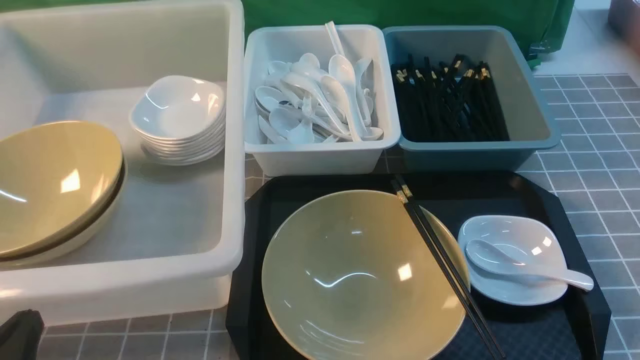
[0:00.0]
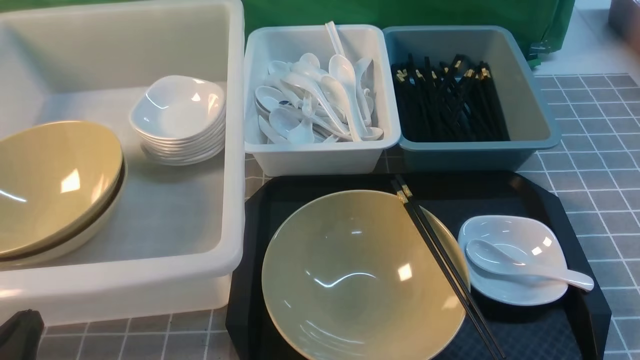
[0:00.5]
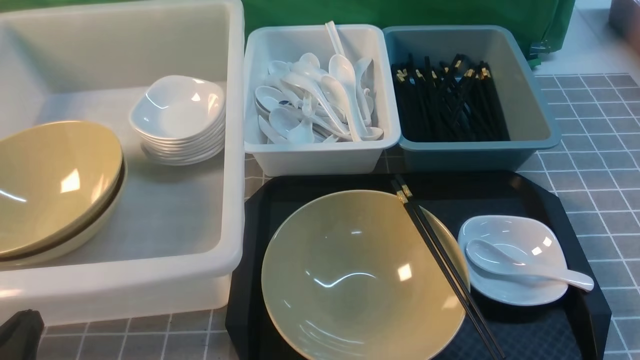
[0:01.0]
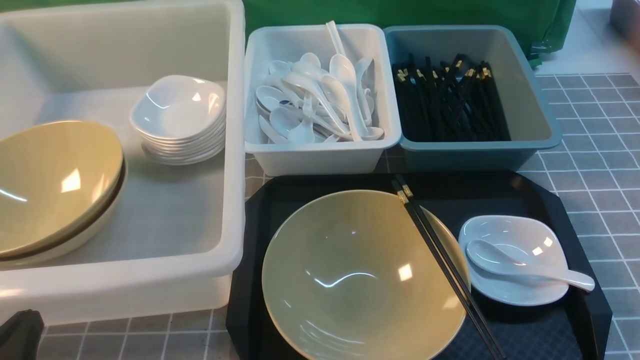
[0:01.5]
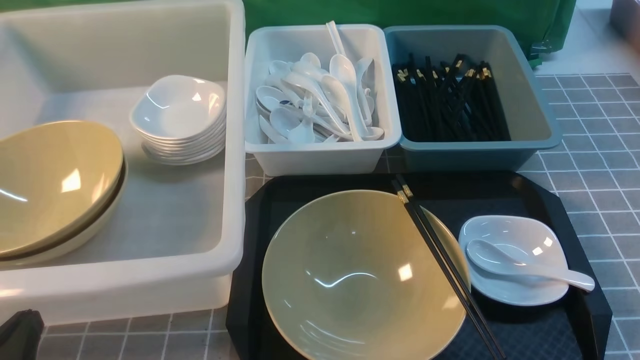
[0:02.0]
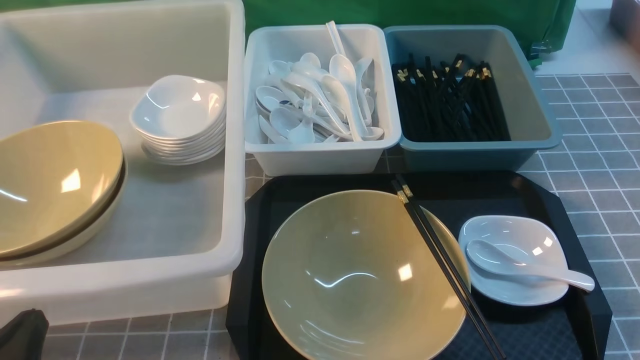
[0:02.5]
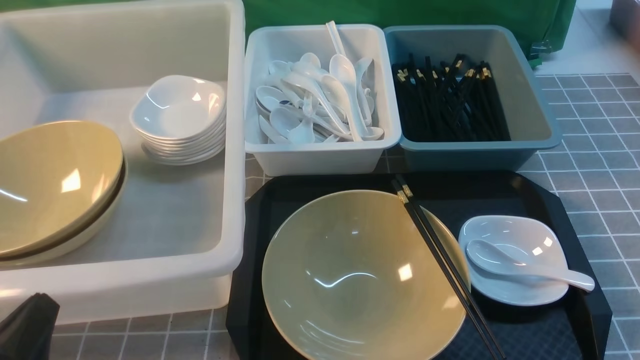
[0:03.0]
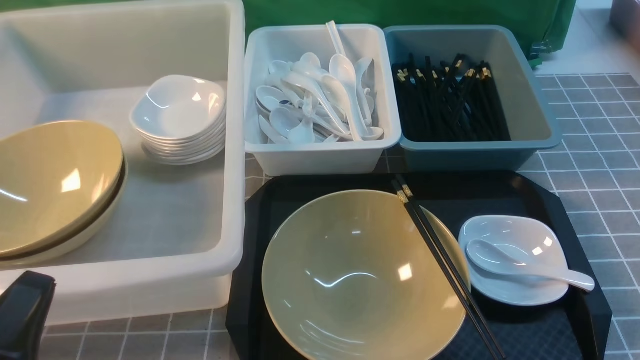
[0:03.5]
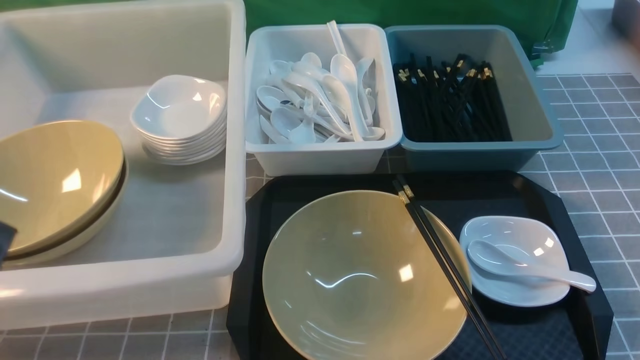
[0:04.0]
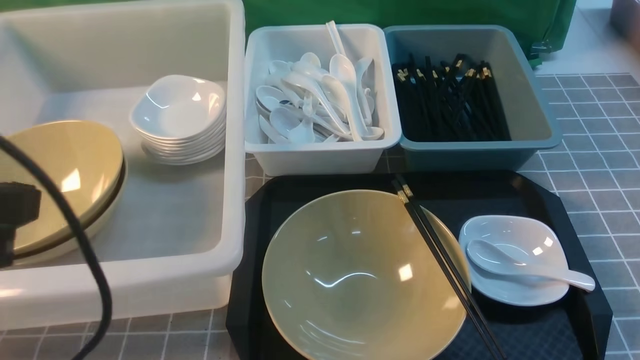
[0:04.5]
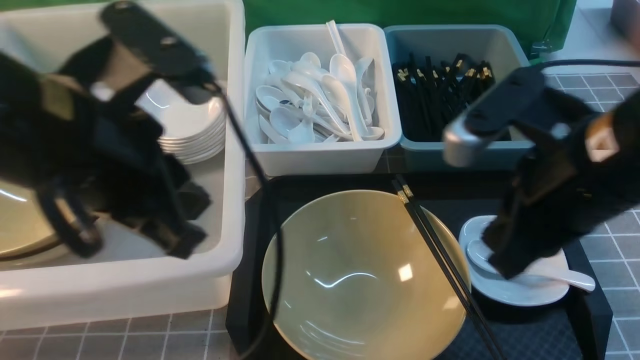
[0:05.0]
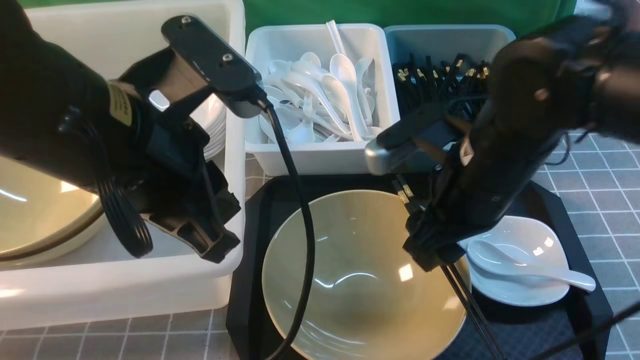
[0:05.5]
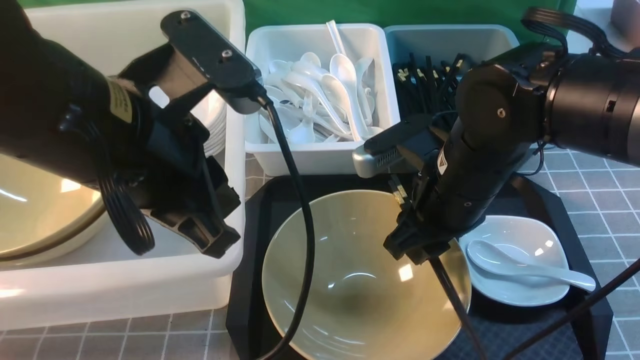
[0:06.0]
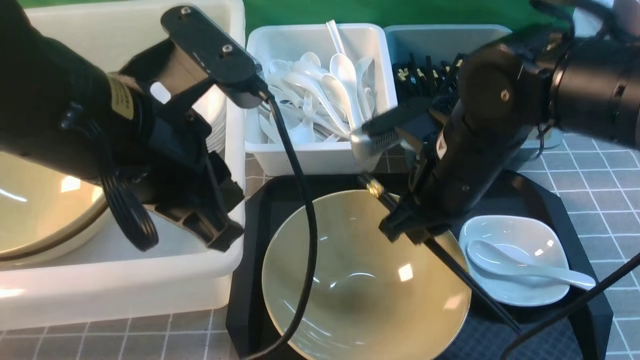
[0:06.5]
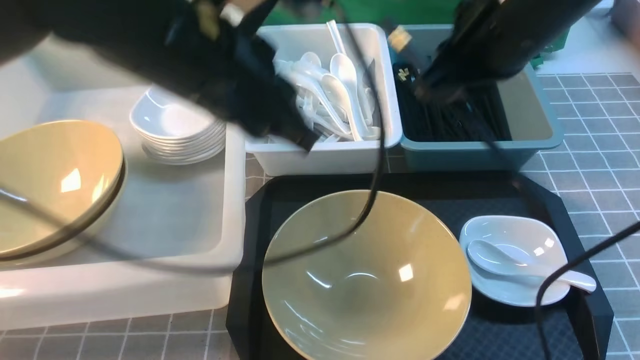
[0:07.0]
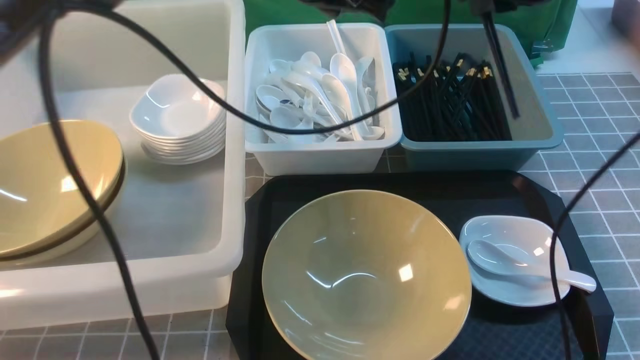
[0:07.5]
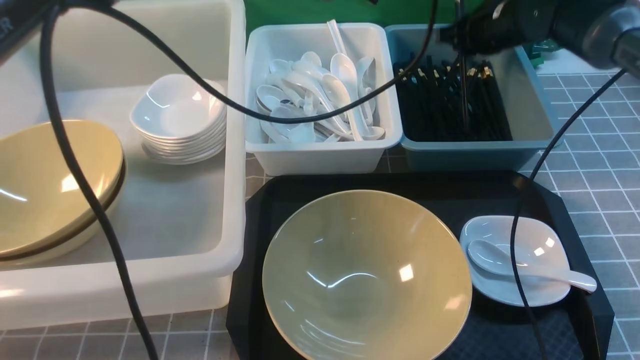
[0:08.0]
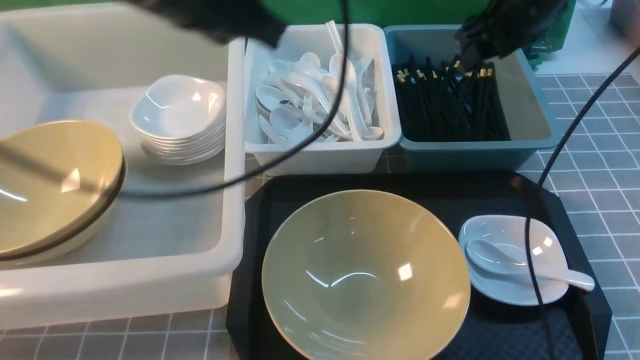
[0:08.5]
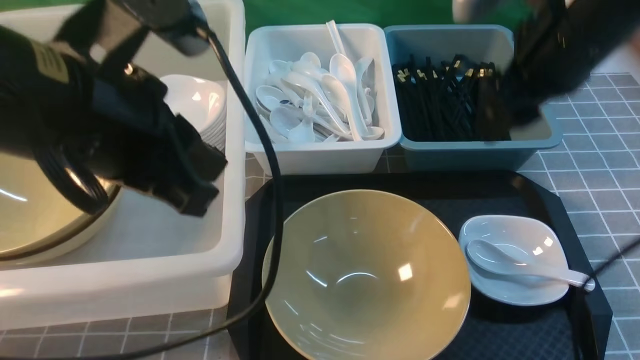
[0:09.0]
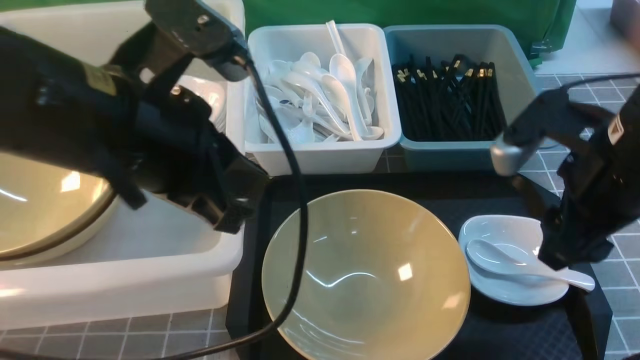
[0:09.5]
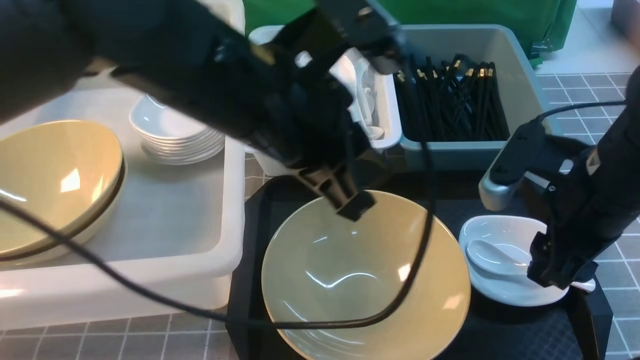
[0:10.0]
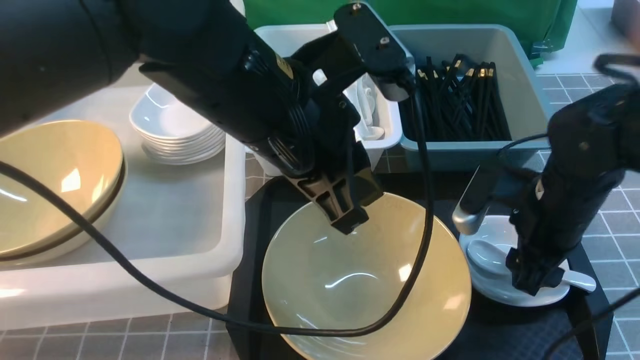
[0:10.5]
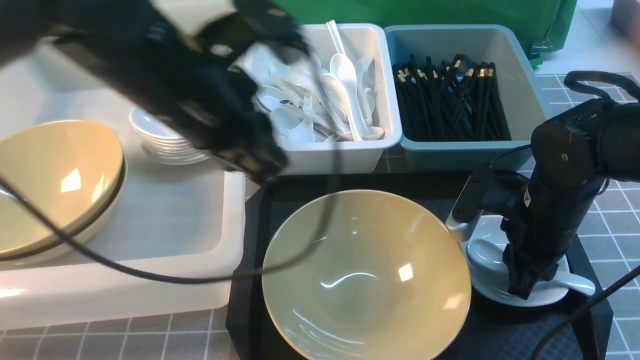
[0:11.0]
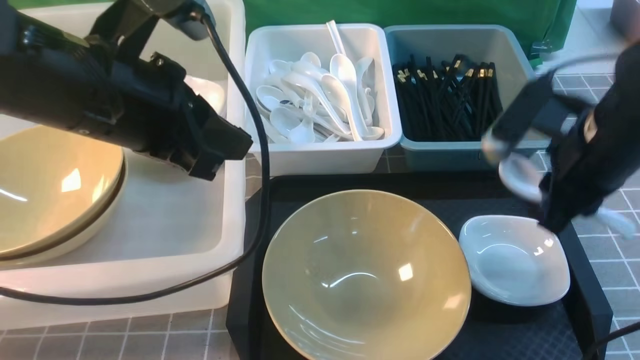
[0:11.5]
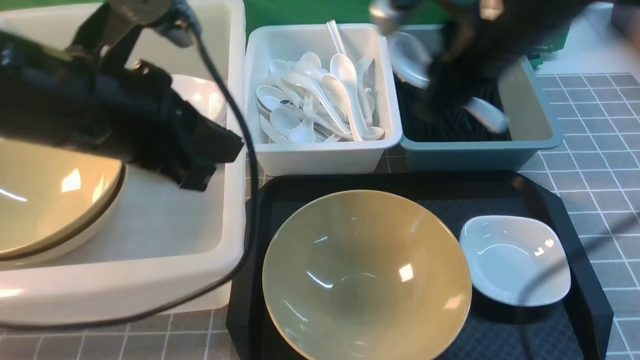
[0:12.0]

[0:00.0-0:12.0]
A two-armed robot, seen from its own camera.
Task of the whole recording: on grey table put chopsticks spoon bowls plates into blue grey white boxes.
Step, 0:00.0 to 0:06.5: use the right arm to grab the chopsticks.
Step, 0:07.0 to 0:08.0: use the right arm to put the chopsticks into the small storage box on the right.
Step, 0:08.5 to 0:11.0: use the right arm to grab the soup spoon in the middle.
0:00.0 to 0:02.0: Neither gripper changes place.
0:02.0 to 0:04.0: Both grippers move upward, about 10 cm.
0:04.0 to 0:06.0: The right gripper shifts approximately 30 cm forward and to the left, and opens, then closes once more. Meanwhile the left gripper heads forward, to the right and upward, covering approximately 20 cm.
0:06.0 to 0:08.0: Both grippers move forward and to the right, roughly 25 cm.
0:08.0 to 0:10.0: The right gripper goes roughly 25 cm backward, and opens up. Meanwhile the left gripper travels backward by approximately 15 cm.
0:10.0 to 0:12.0: The left gripper goes approximately 10 cm to the left. The right gripper is displaced upward, to the left and forward by approximately 15 cm, and closes its fingers.

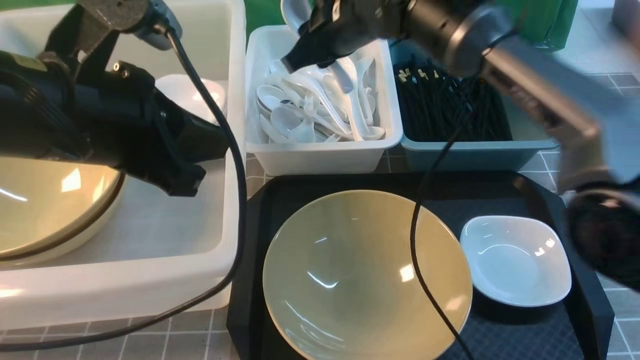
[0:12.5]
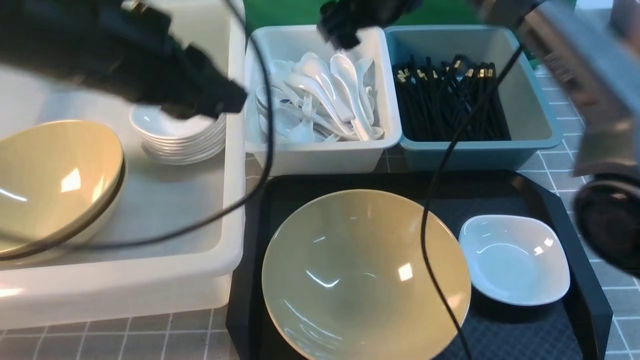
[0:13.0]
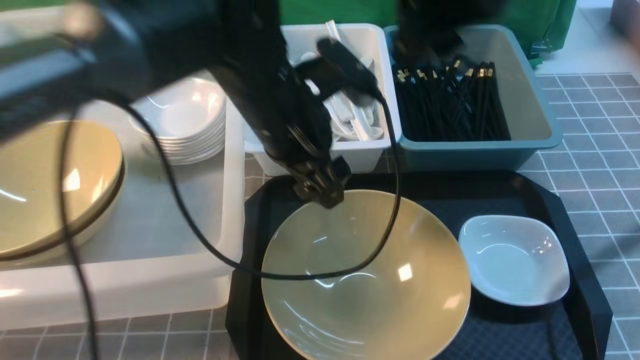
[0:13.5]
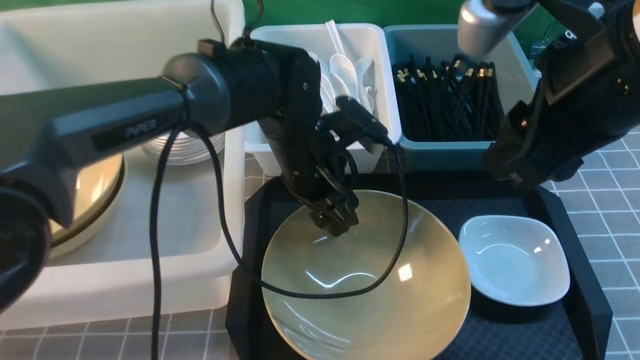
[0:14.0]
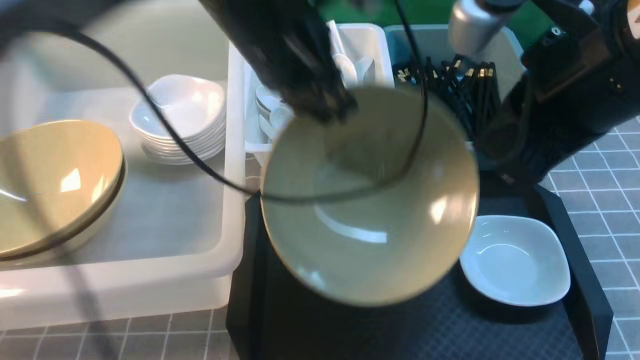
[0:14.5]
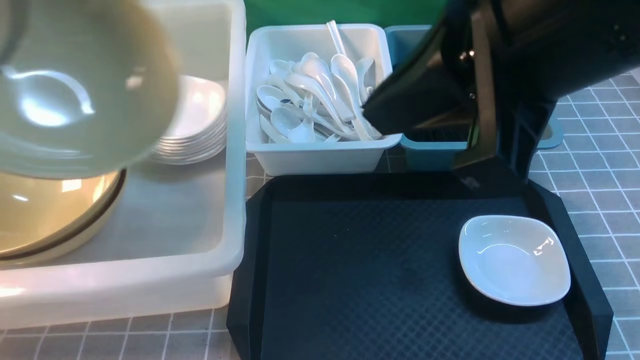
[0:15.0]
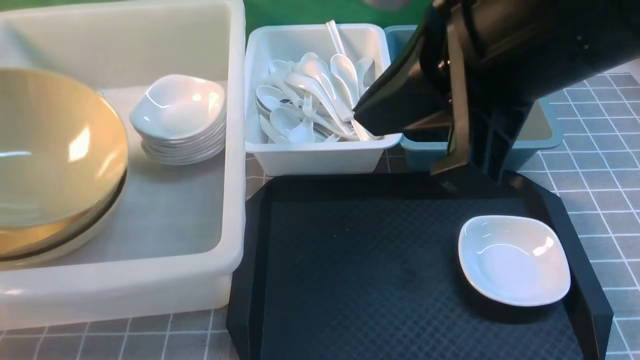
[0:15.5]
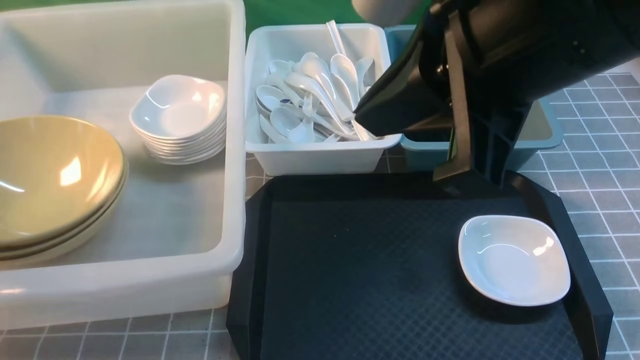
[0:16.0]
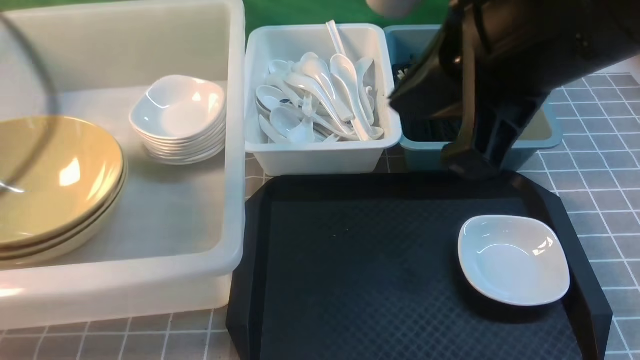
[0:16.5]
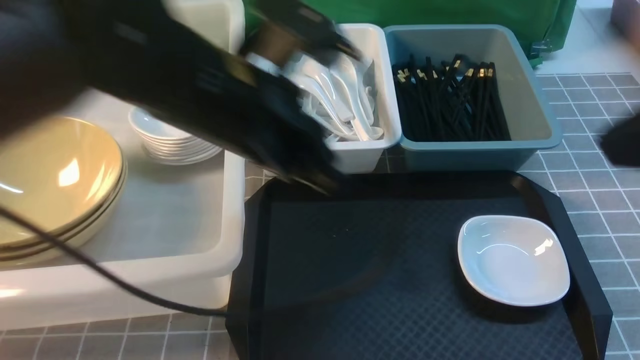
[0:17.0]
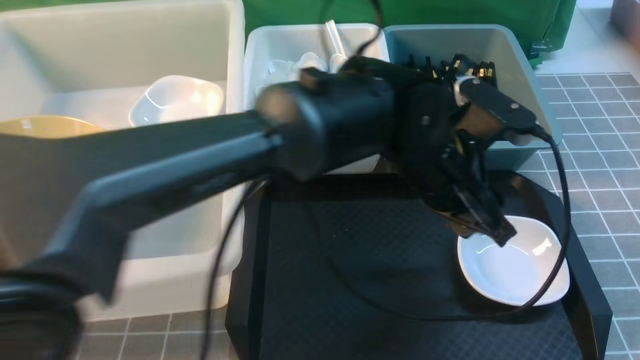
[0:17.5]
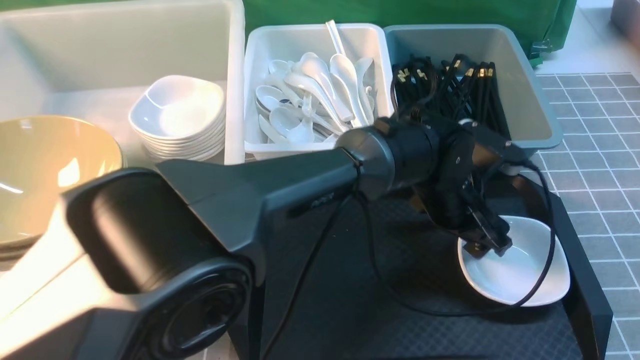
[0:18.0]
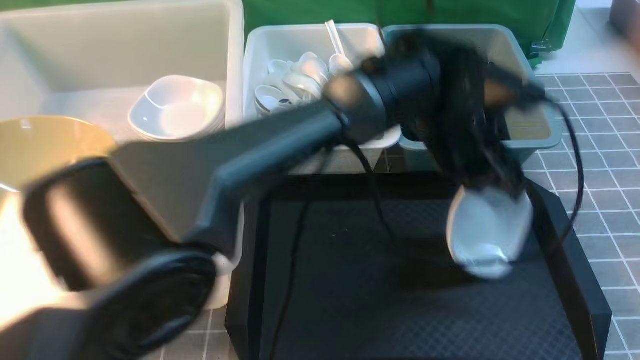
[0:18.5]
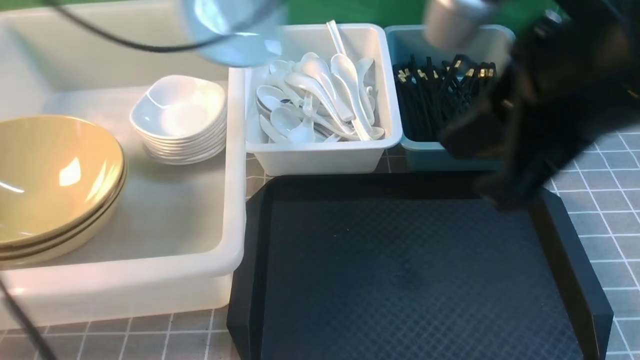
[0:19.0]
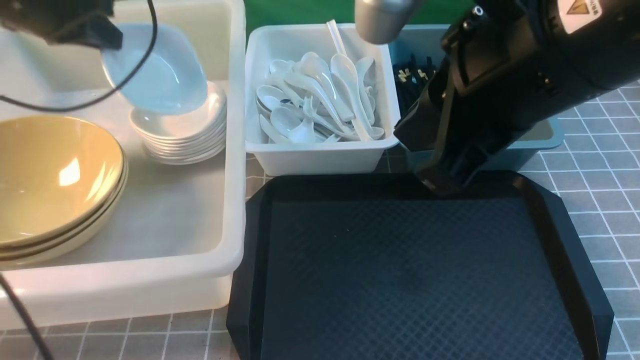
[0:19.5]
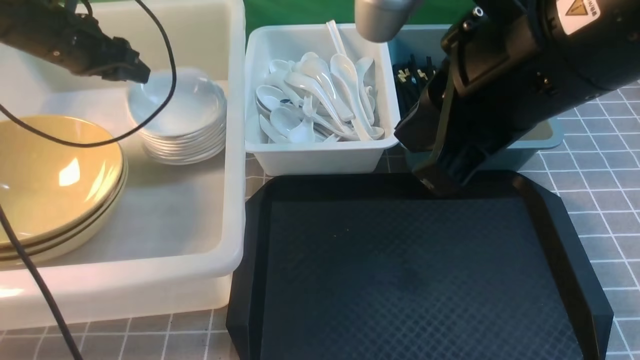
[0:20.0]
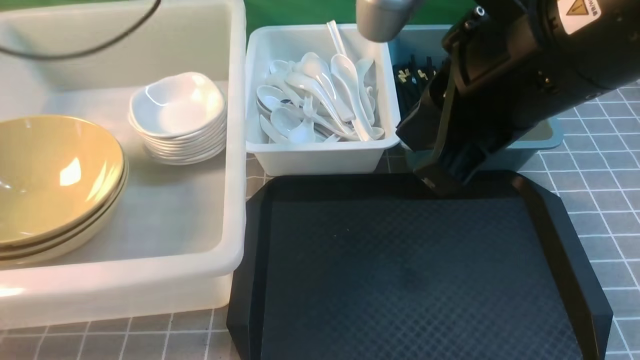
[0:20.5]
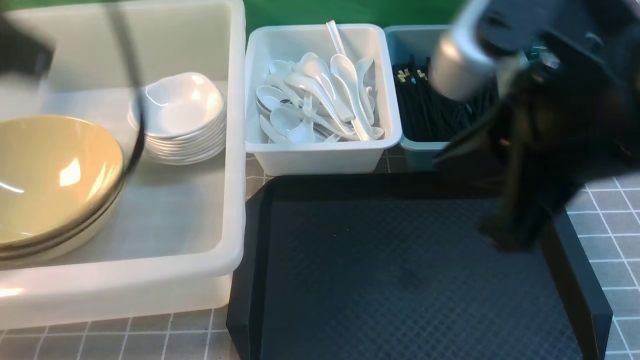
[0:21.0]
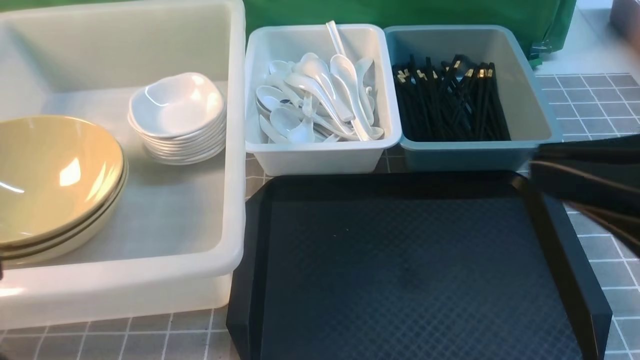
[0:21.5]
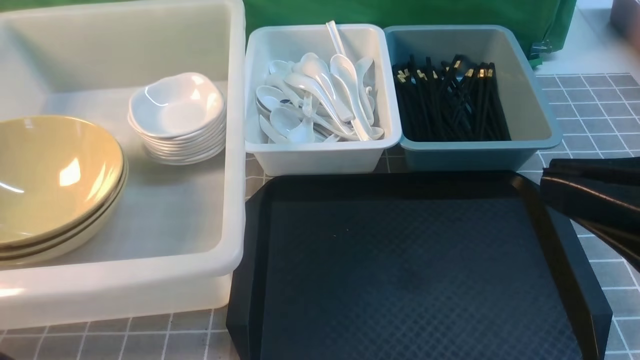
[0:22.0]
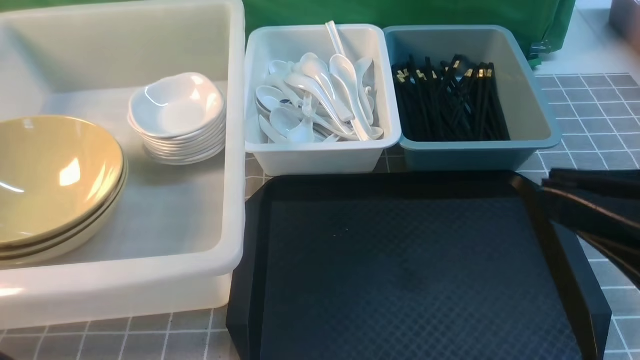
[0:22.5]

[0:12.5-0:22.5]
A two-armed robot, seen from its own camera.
Task of the whole recording: on grey table put chopsticks spoon bowls plates into blue grey white boxes.
Step, 0:13.0 to 0:14.0: use the left arm to grab the yellow noodle bowl on the left.
Step, 0:14.5 to 0:16.0: use the left arm to put the noodle bowl into the large storage box on the left.
Step, 0:16.5 to 0:18.5: use the left arm to grab the plate.
Step, 0:19.0 to 0:20.0: use the left arm to put the plate into the large storage box on the left.
0:12.5 to 0:14.5: The right gripper goes roughly 30 cm backward, to the right and upward, and closes up, while the left gripper moves forward and to the right, approximately 15 cm, moves about 15 cm downward and comes back, and opens and closes again.
0:14.5 to 0:16.5: The left gripper moves to the left, approximately 25 cm, and opens and closes again, while the right gripper moves some 5 cm.
0:16.5 to 0:18.5: The left gripper travels to the right by approximately 40 cm, and opens, then closes again. The right gripper travels to the right, backward and downward by some 15 cm.
0:18.5 to 0:20.5: The left gripper heads to the left and upward, covering about 35 cm. Meanwhile the right gripper goes about 15 cm to the left and forward.
0:20.5 to 0:22.5: The right gripper goes roughly 20 cm to the right, backward and downward, while the left gripper is displaced backward and downward by roughly 35 cm, and closes up.
